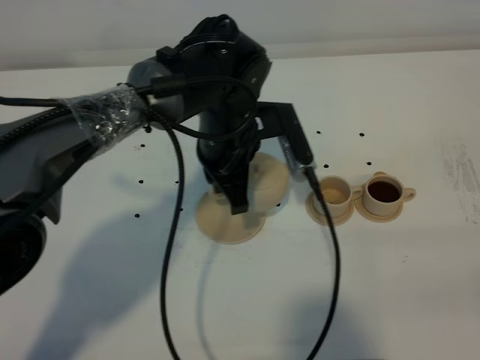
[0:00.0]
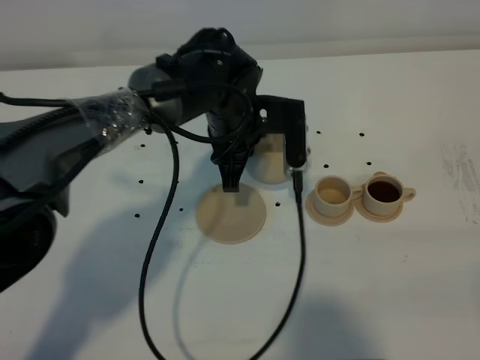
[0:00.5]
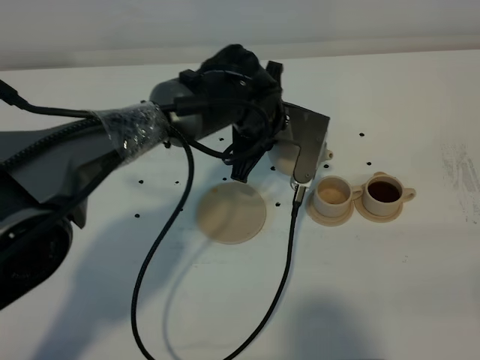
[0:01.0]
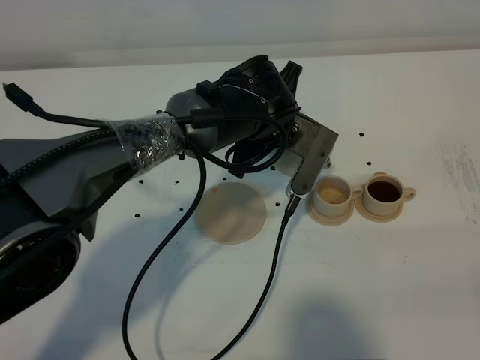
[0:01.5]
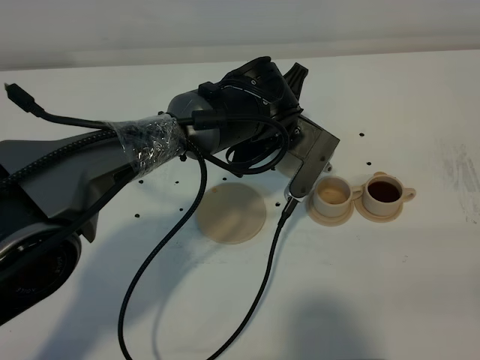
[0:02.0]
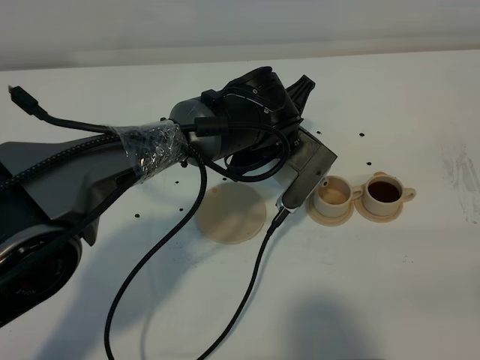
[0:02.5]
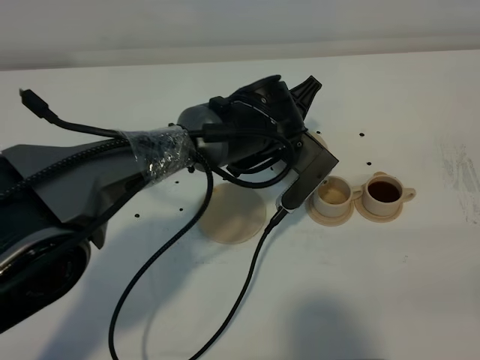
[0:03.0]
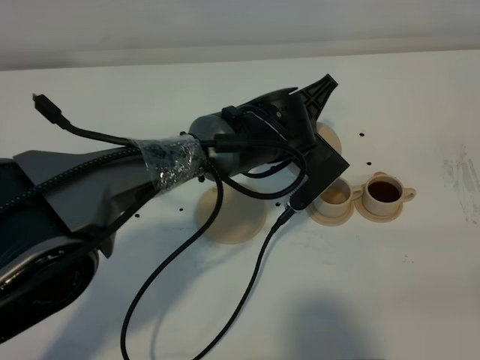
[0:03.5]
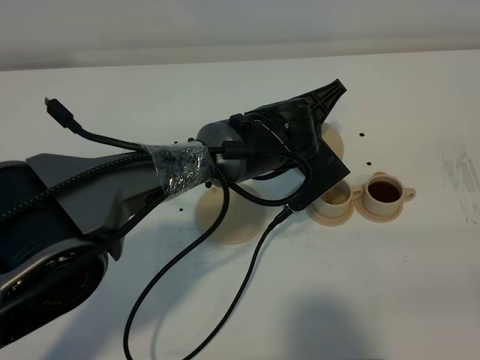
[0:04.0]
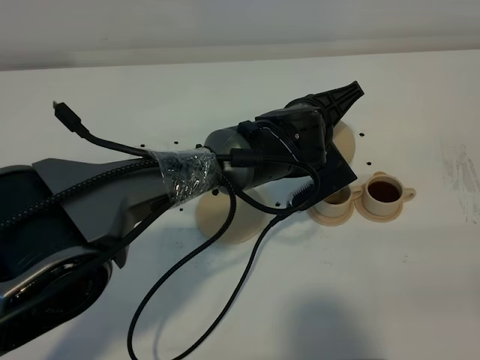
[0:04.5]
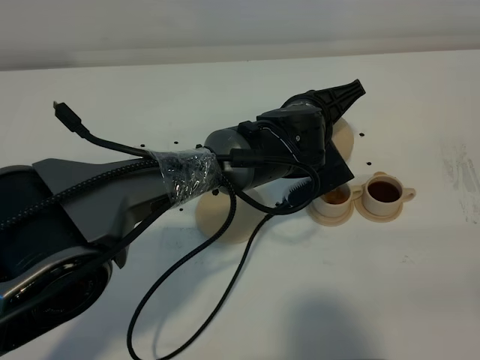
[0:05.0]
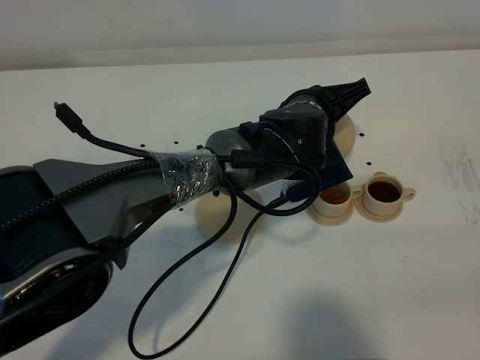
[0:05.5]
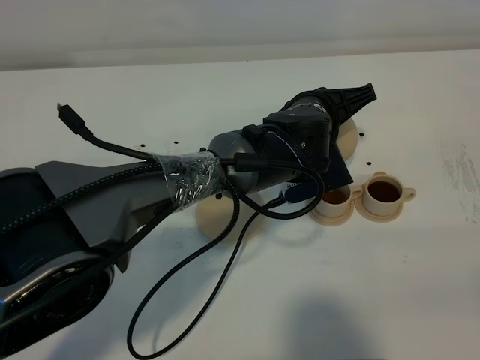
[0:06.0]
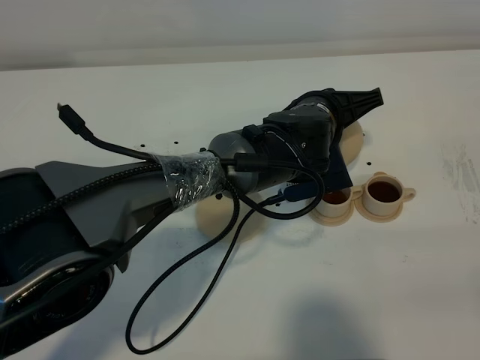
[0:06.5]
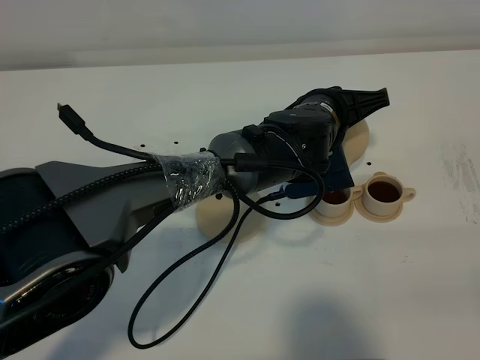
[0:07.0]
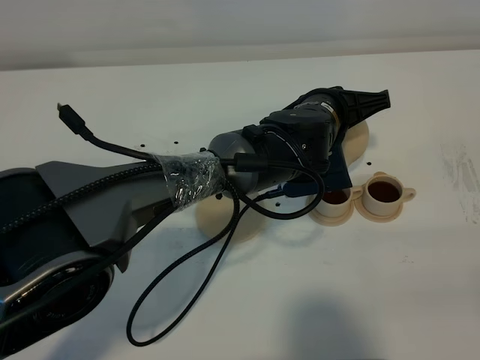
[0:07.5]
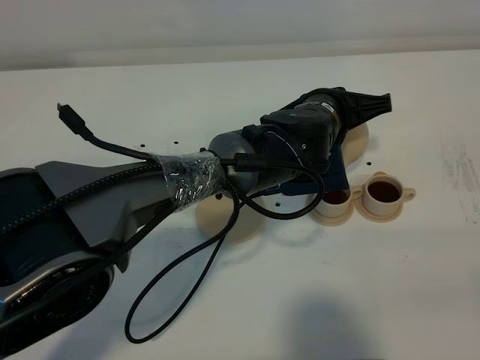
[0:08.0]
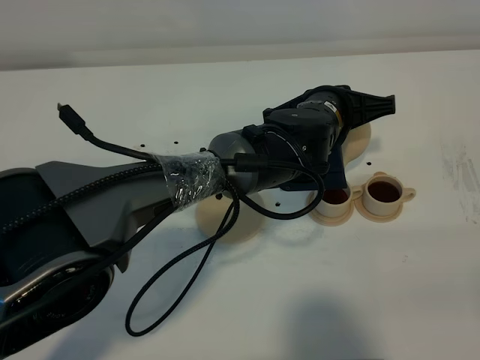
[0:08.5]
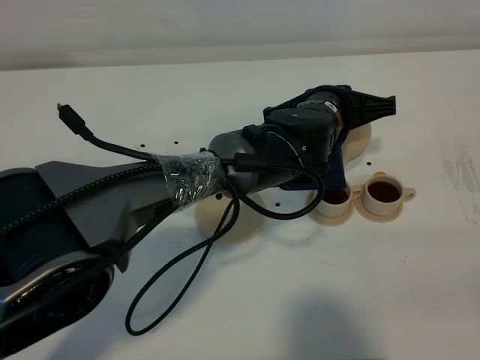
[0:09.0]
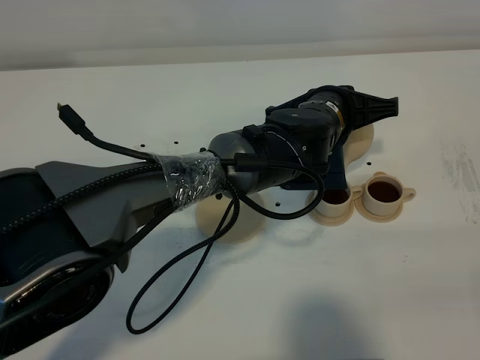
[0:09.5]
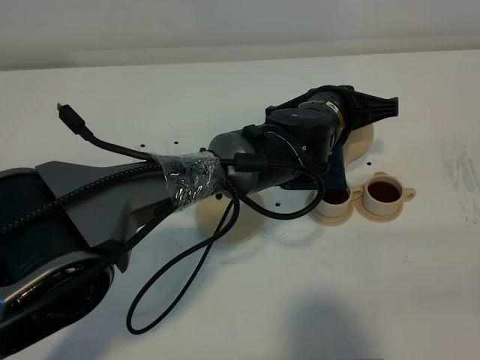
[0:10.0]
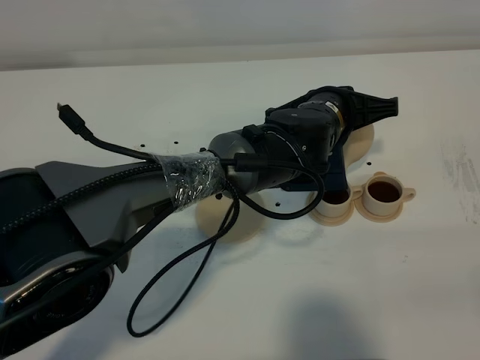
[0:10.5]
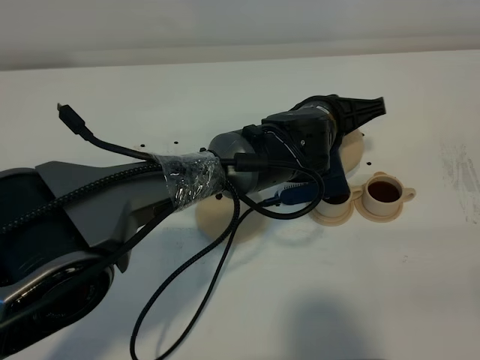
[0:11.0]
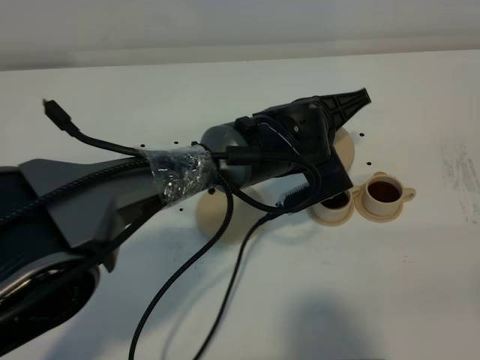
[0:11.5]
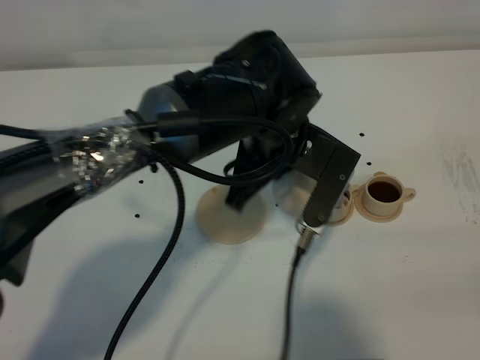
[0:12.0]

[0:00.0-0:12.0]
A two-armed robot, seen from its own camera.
Task of the whole recording: grasp the brown teapot and pour the tea into the two brown teacups one by one, put the brown teapot back in its original place.
Step, 0:00.0 to 0:11.5: Pour tea into the teacup with the left gripper.
0:00.0 to 0:02.0: The left gripper heads to the right, covering approximately 5 cm.
0:04.0 to 0:06.0: The grippers make only small movements.
0:06.0 to 0:10.0: The grippers stay close to where they were, moving slightly.
0:10.0 to 0:12.0: The left gripper heads upward, to the left and backward, covering roughly 10 cm.

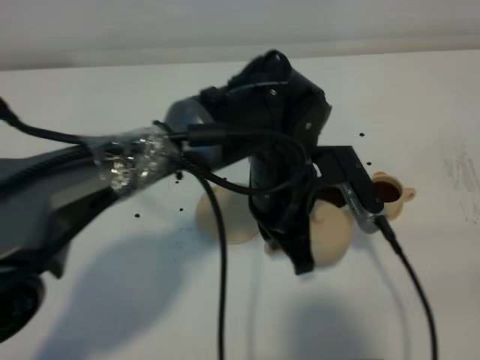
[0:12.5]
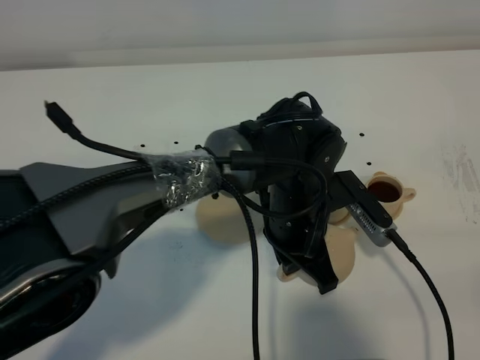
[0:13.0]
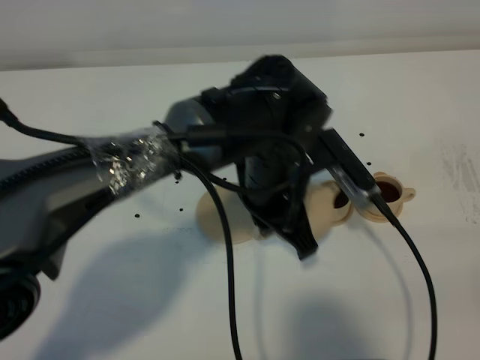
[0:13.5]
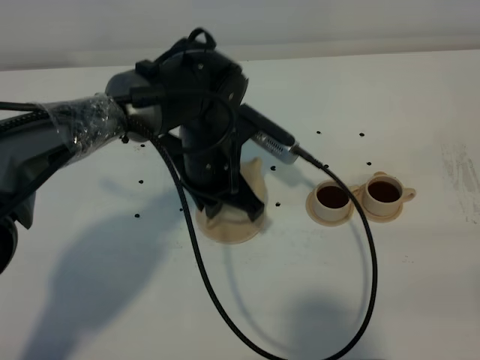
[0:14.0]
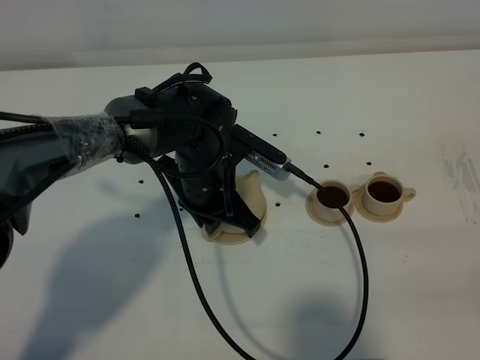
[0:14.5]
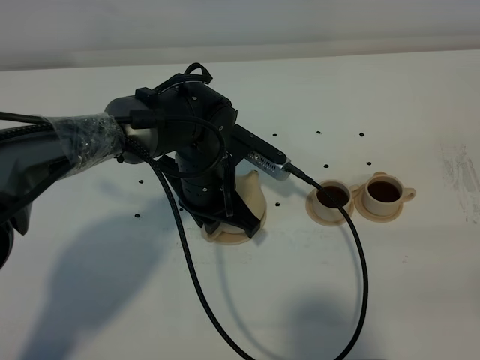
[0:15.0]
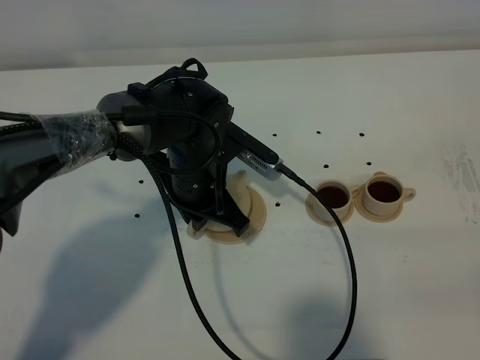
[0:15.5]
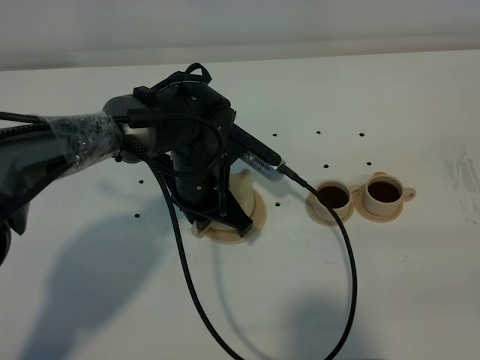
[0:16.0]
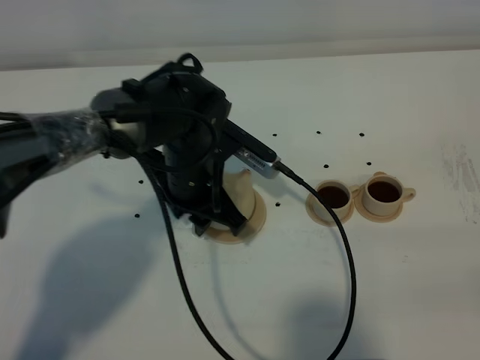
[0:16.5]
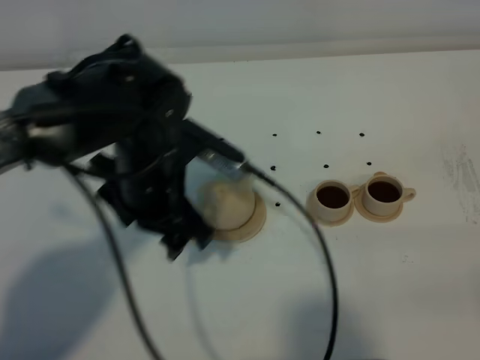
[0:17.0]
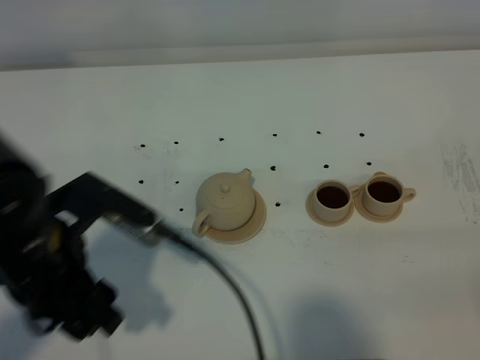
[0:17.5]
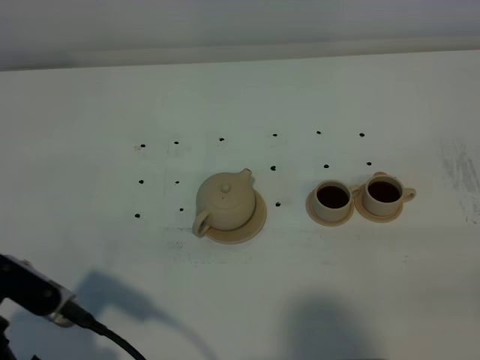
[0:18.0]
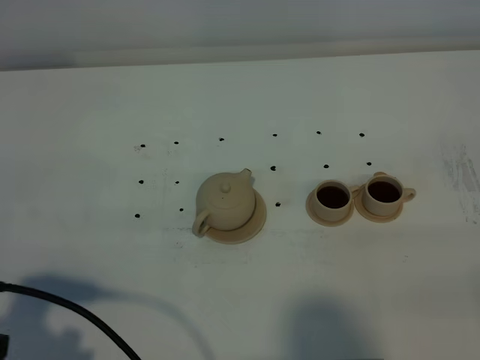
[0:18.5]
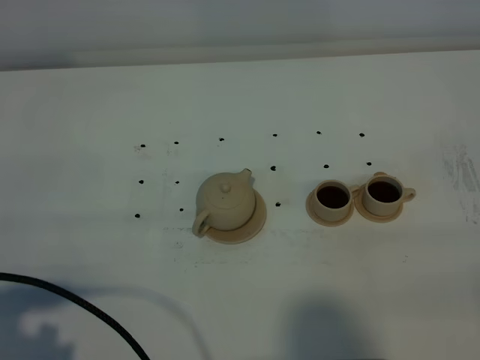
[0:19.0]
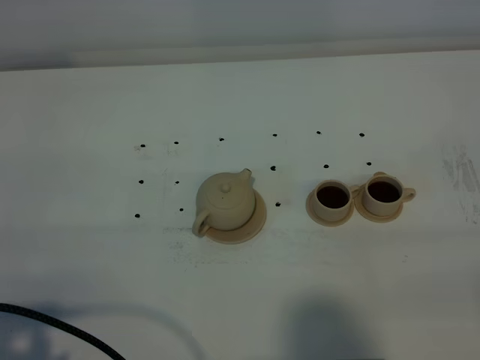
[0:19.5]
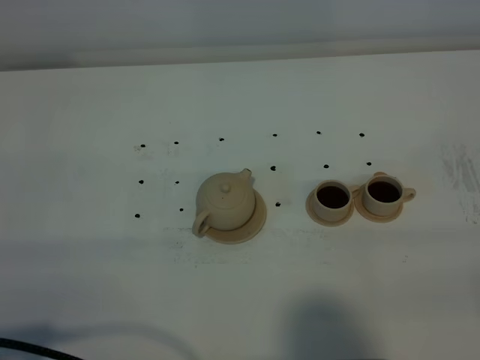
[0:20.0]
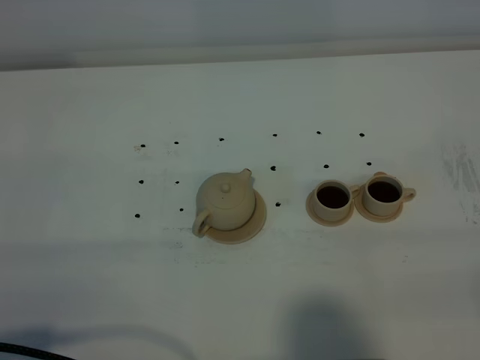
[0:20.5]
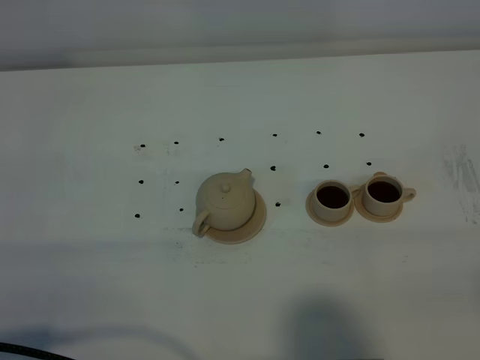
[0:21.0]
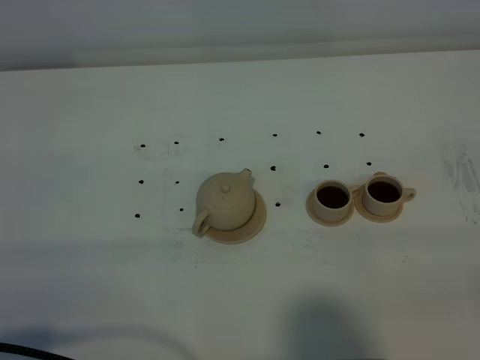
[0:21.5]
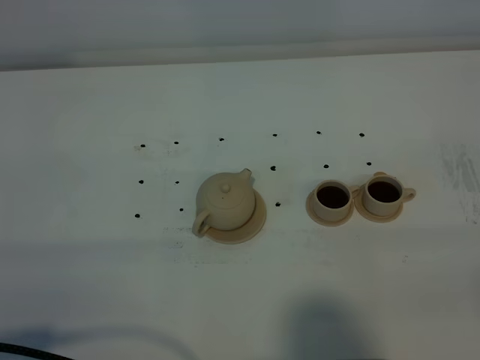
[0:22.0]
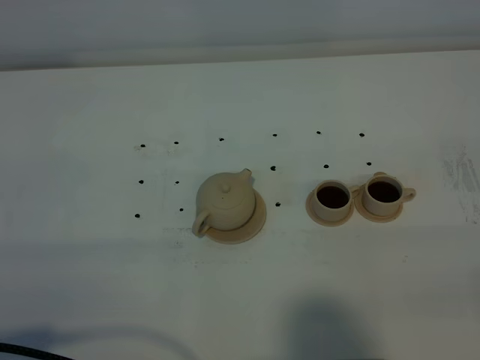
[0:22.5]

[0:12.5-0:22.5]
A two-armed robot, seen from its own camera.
Task of the whole recording: grasp the brown teapot and pour the tea into the two brown teacups one by one, put the brown teapot back in its original place.
0:12.5 to 0:14.5: The left gripper goes roughly 10 cm to the left, forward and downward.
0:14.5 to 0:16.5: The left gripper opens up.
0:16.5 to 0:18.5: The left gripper shifts some 35 cm backward and to the left, and opens.
0:18.5 to 0:20.5: The left gripper is displaced backward by some 5 cm.
0:20.5 to 0:22.5: Both grippers stay put.
